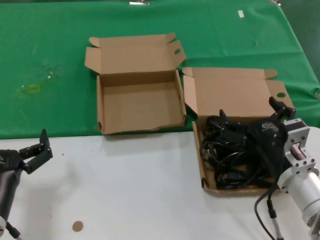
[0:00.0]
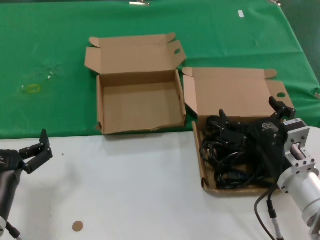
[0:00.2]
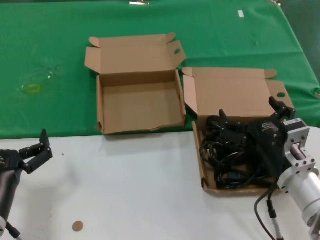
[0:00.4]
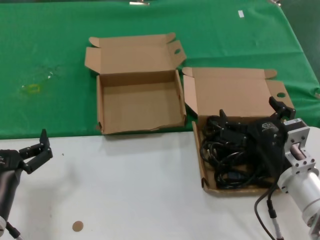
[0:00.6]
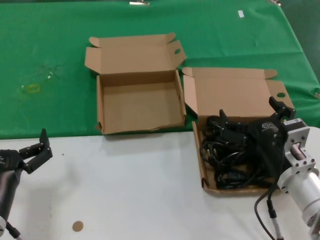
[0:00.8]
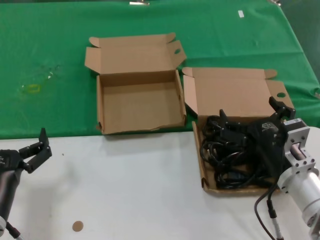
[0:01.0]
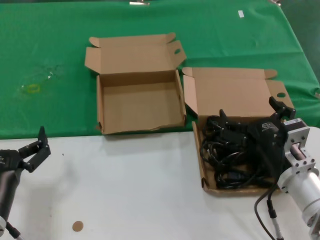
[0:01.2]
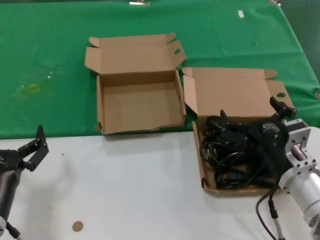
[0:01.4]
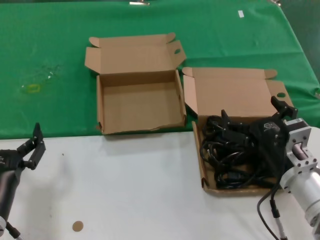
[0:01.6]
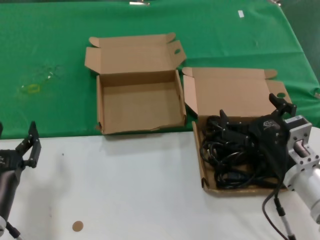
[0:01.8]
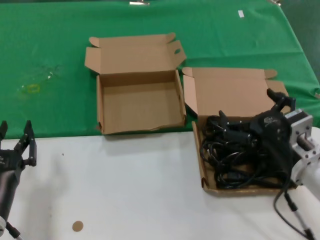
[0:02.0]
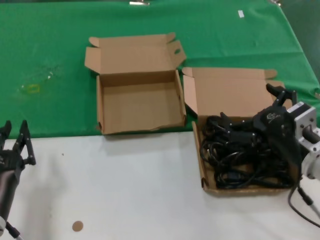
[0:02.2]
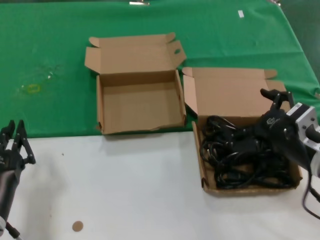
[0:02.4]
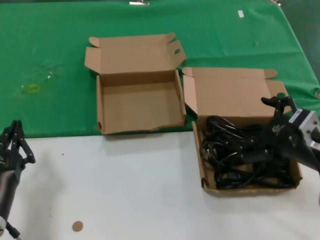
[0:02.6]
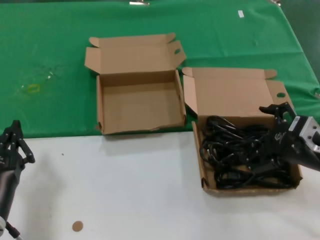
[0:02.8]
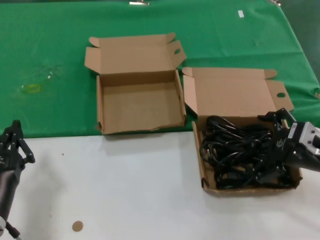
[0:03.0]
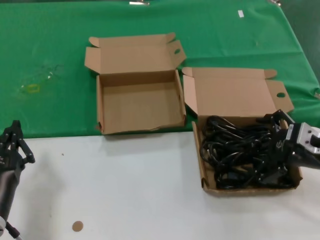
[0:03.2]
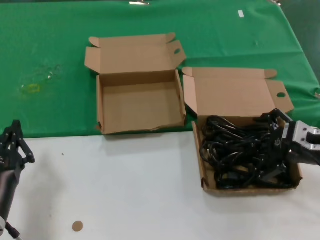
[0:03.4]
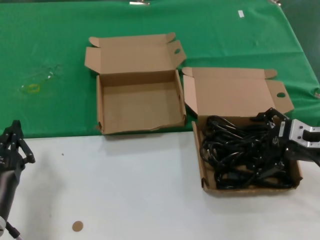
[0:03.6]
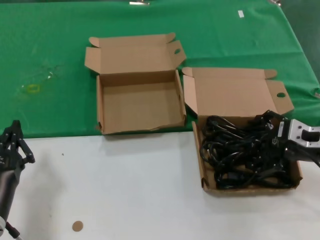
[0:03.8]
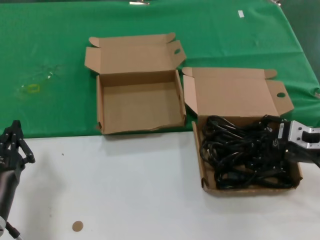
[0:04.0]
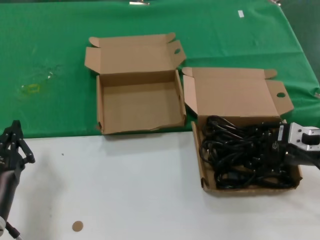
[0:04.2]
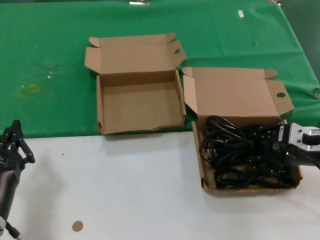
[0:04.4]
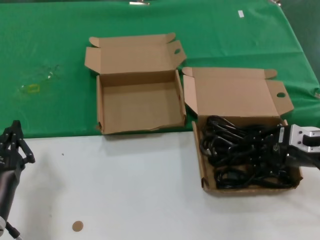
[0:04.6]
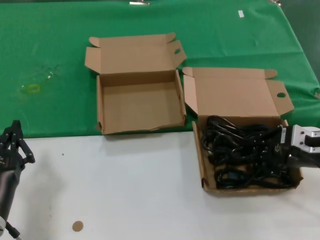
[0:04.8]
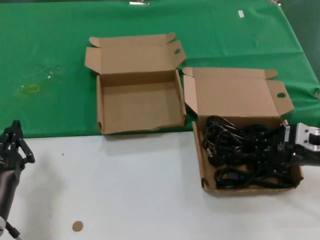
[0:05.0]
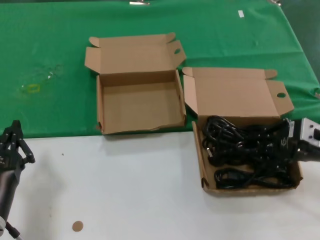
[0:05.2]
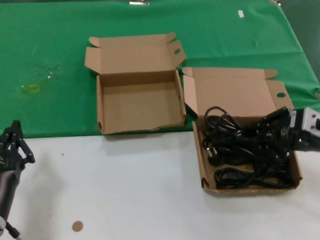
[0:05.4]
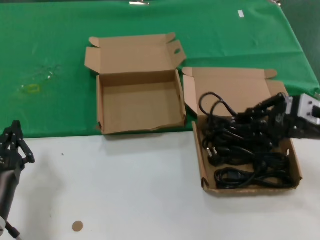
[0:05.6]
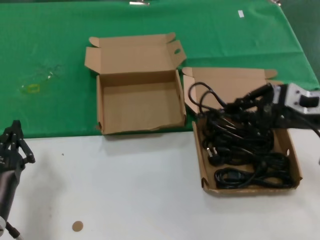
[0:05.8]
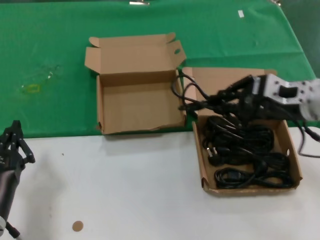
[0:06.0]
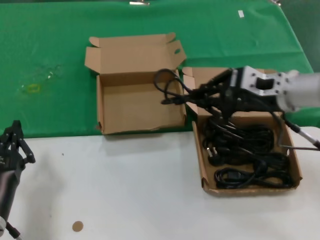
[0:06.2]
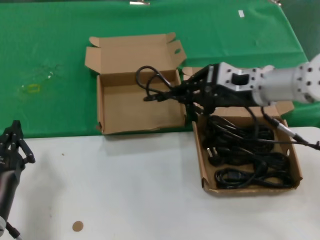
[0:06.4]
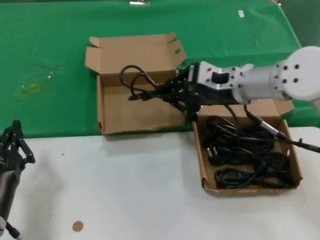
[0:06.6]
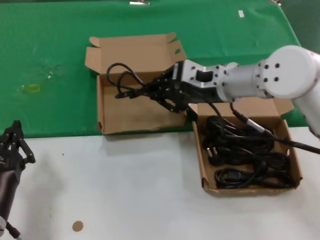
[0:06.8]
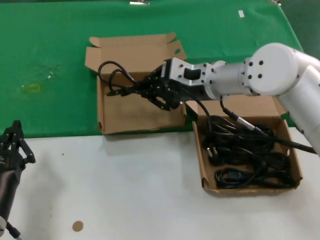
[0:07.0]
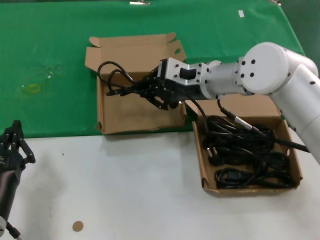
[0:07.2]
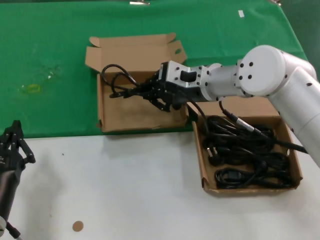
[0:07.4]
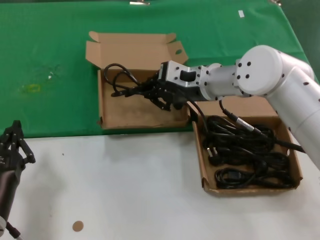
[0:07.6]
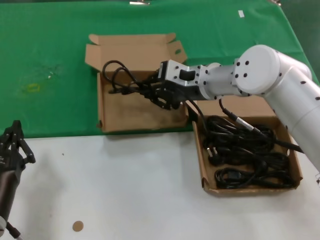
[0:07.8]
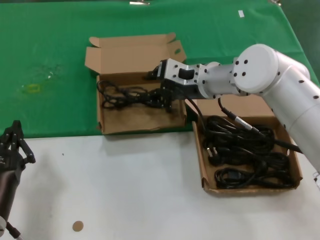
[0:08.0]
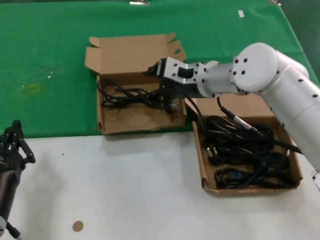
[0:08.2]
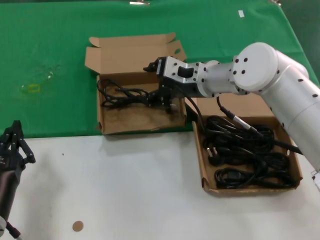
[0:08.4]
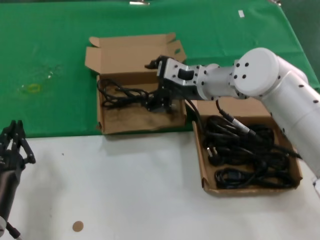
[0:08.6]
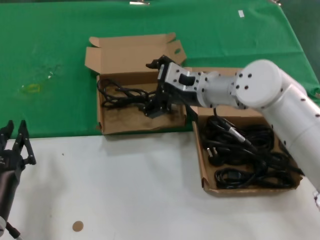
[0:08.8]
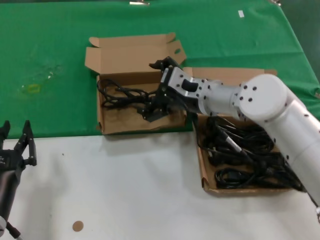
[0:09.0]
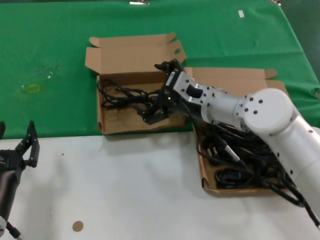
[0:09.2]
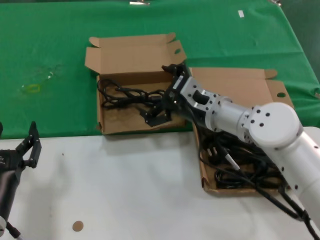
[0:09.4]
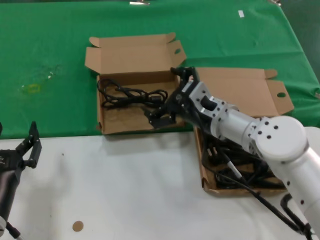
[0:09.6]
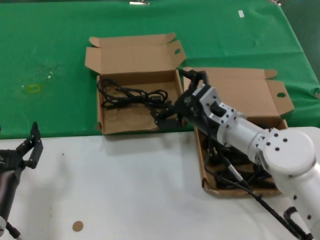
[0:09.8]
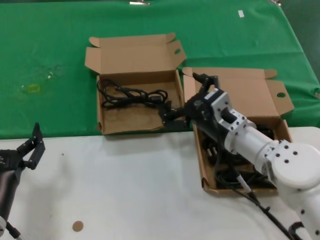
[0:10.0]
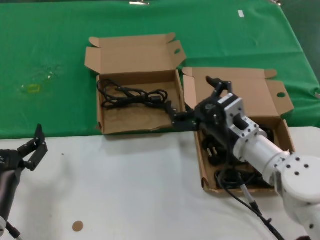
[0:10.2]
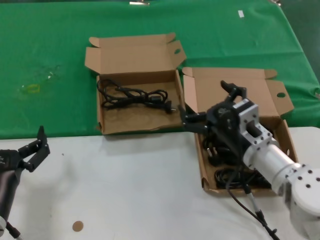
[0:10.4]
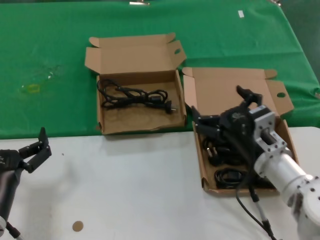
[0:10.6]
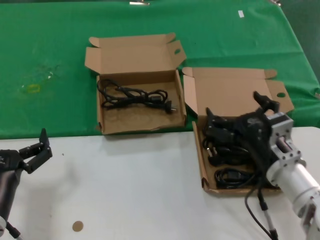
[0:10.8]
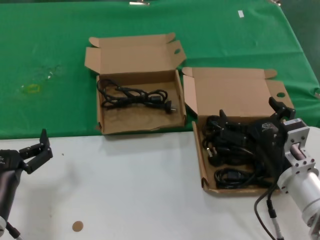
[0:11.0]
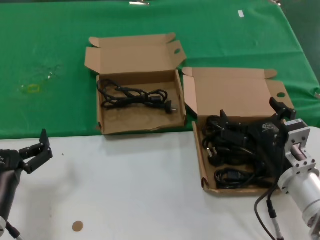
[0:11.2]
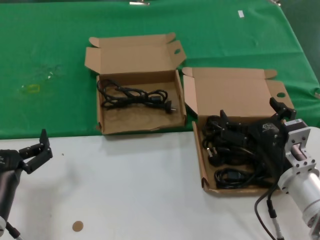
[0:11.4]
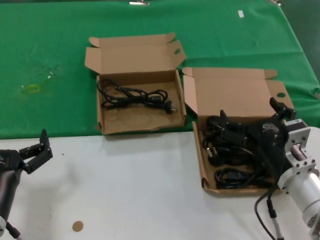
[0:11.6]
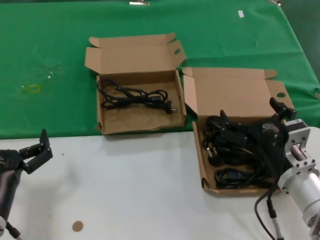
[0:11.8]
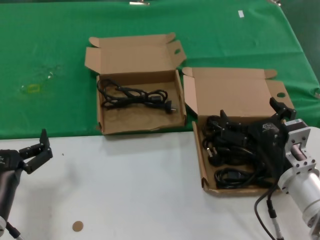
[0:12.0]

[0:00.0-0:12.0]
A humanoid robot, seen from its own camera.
Task of the whole recording: take the parts from the box containing them and put them into an empty box.
Step, 0:00.0 to 0:04.6: Grasp the data cable.
Step, 0:04.8 to 0:08.4: Place the data cable in the another box.
0:00.0 to 0:01.6: Both hands stay about where they are.
0:01.6 to 0:03.0: The right hand shifts about 10 cm to the right and upward.
0:03.0 to 0:04.4: The hands move only a little.
0:04.4 to 0:06.0: The right hand travels upward by approximately 10 cm.
0:06.0 to 0:07.6: The right hand is displaced to the left and forward by some 20 cm.
0:07.6 to 0:09.0: The hands move only a little.
0:09.0 to 0:10.4: The right hand heads backward, downward and to the right, covering some 15 cm.
0:10.4 to 0:12.0: The right hand moves backward, approximately 5 cm.

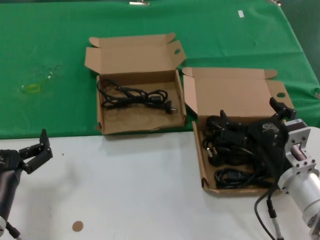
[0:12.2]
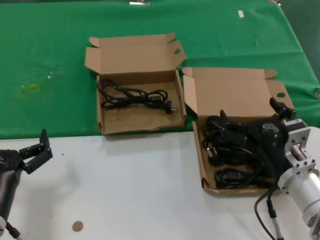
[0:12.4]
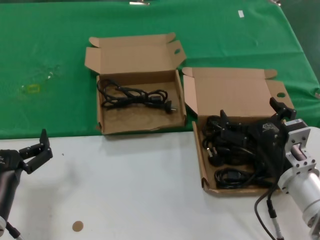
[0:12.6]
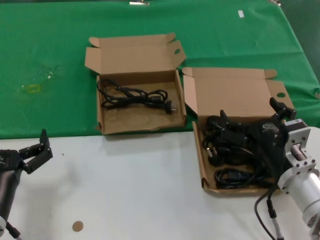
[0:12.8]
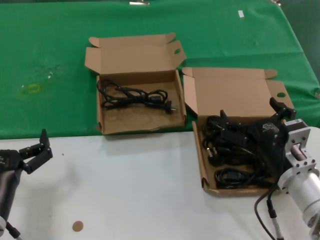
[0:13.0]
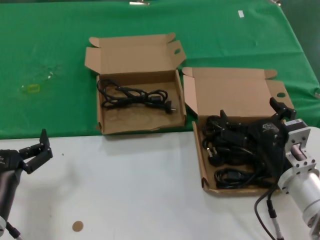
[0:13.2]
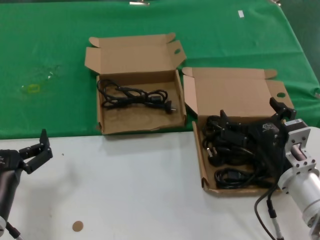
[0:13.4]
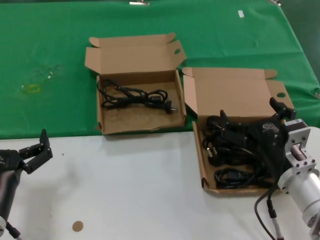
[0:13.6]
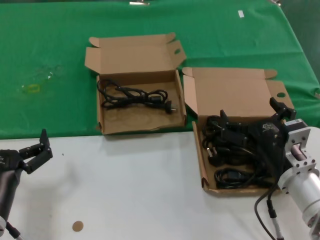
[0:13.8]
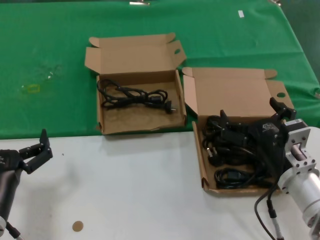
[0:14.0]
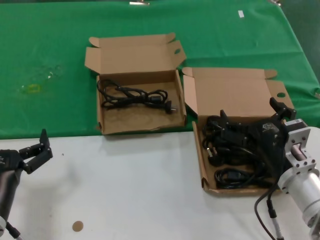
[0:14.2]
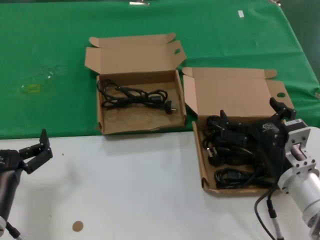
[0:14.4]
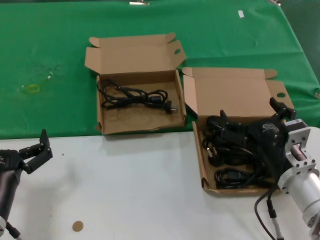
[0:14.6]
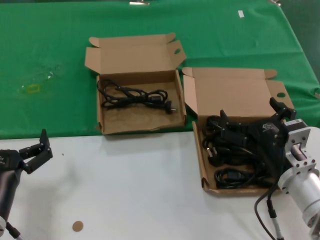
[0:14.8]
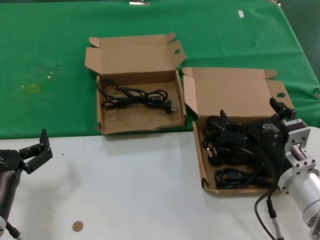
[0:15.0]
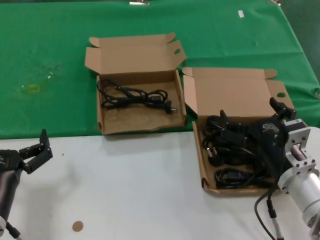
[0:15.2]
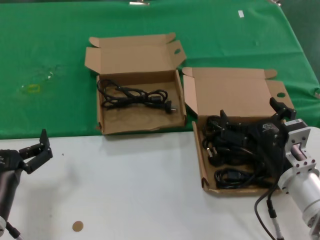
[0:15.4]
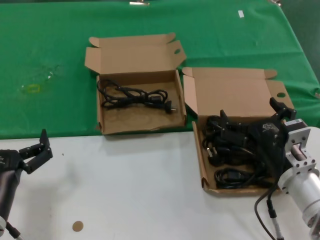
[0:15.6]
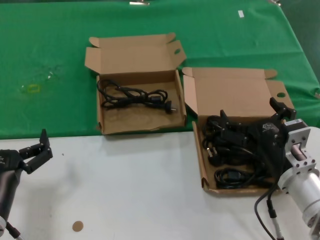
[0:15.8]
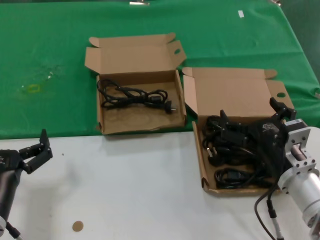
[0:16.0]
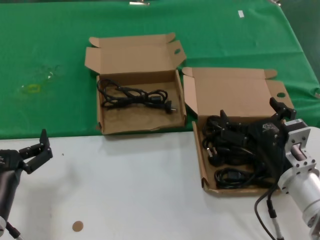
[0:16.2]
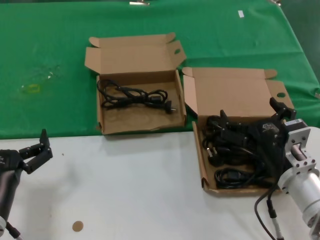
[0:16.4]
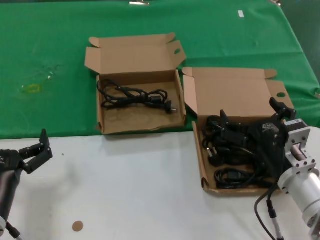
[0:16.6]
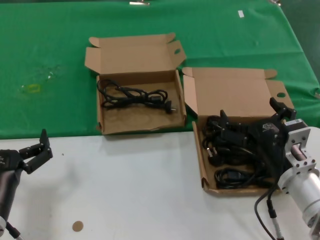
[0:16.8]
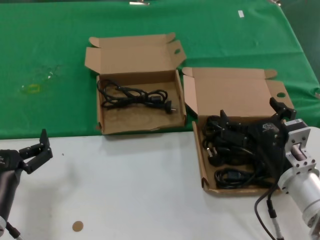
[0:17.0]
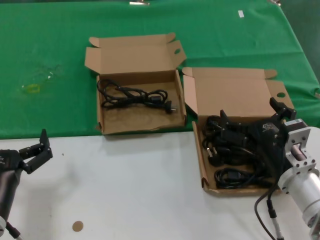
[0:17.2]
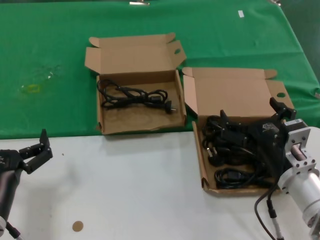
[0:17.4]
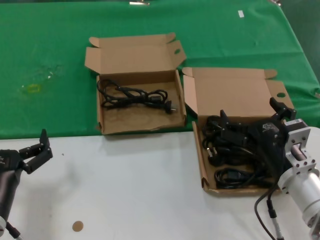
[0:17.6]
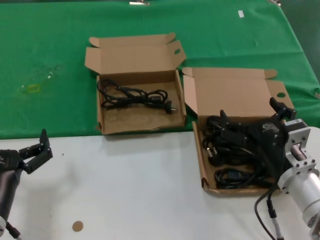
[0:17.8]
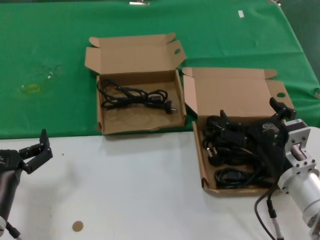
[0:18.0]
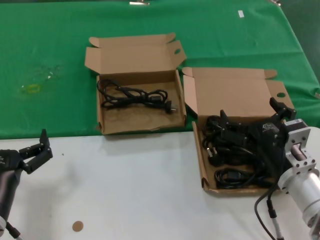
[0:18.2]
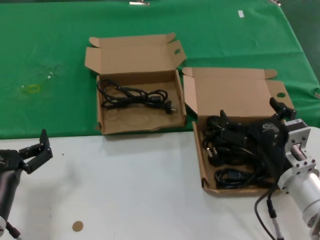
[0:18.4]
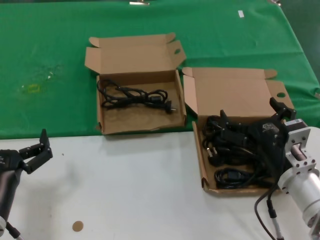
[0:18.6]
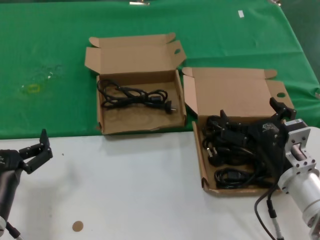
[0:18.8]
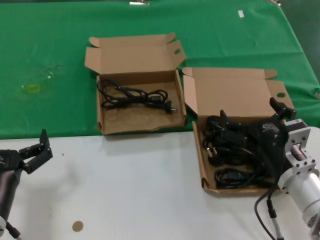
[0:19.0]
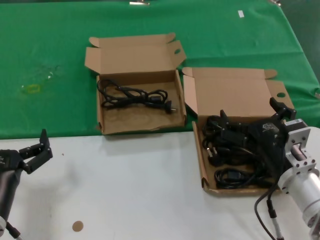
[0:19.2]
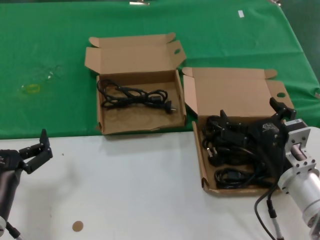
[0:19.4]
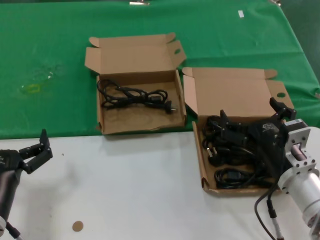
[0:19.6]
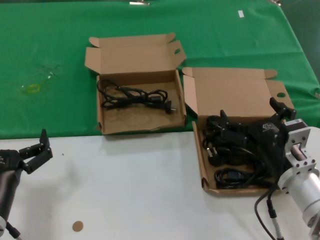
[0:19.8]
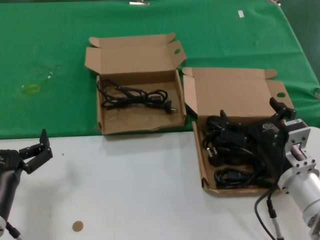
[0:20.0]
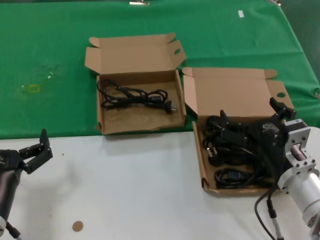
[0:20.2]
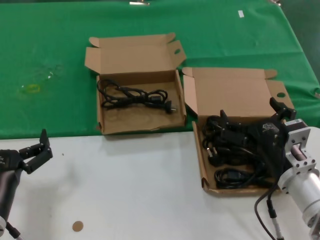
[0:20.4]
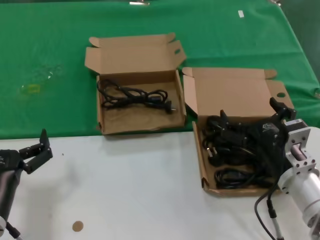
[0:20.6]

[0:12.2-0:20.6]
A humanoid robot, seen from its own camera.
Task of the whole recording: take the parts from the box containing them and put them into an empty box.
0:12.2 to 0:20.6: Both hands stay about where they are.

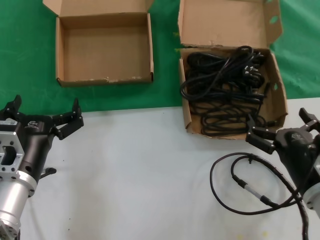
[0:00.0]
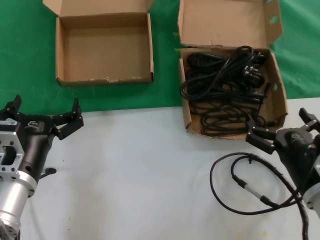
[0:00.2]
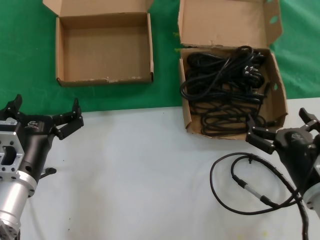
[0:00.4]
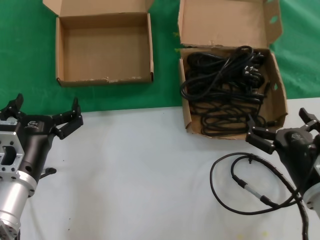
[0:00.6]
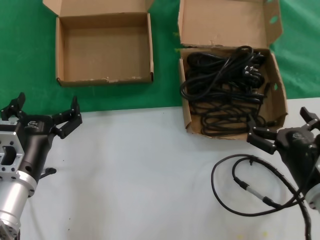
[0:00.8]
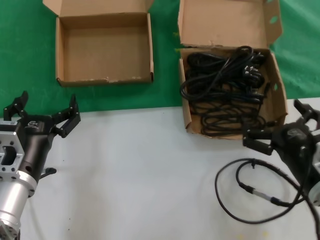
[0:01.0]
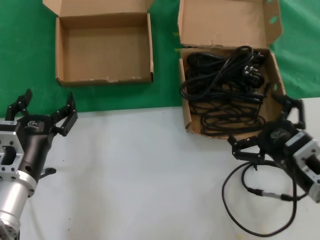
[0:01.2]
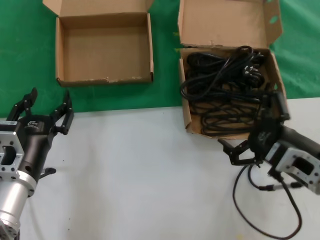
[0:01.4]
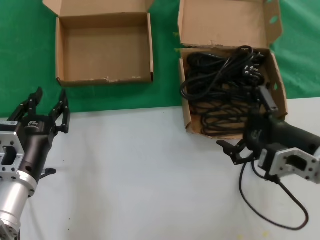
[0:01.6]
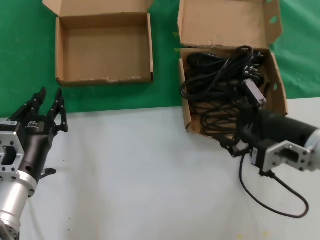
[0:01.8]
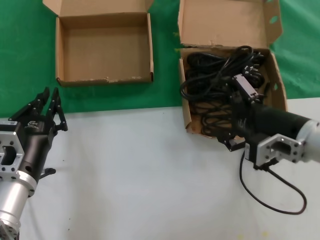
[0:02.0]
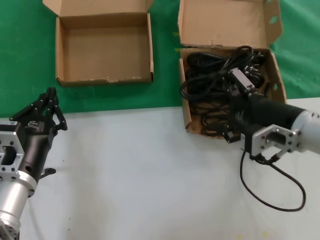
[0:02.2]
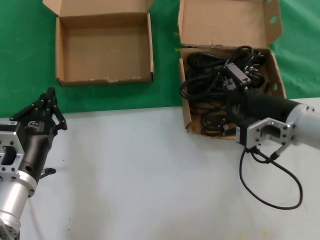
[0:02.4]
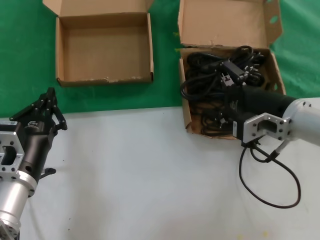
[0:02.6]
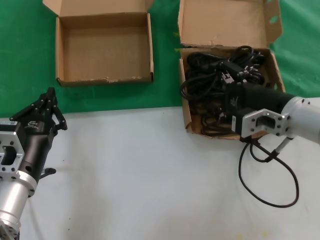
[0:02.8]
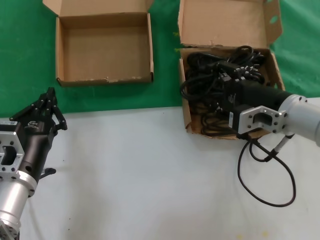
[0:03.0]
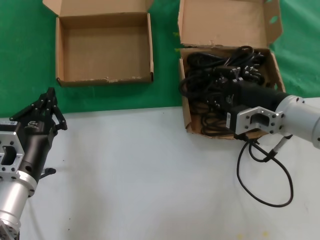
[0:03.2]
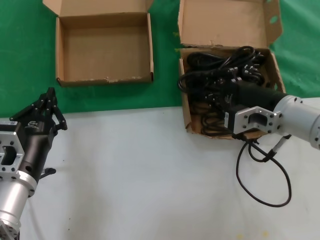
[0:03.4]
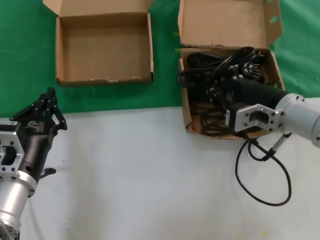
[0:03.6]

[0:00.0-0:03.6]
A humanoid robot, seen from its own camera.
Task of the whole recording: take the parts from the box containing them and put them into an empty box.
Step, 0:00.0 to 0:03.4: Grasp the data cable.
0:00.0 to 0:01.8: The right hand heads upward and forward, covering about 10 cm.
0:01.8 to 0:03.6: The right hand moves forward, some 5 cm.
